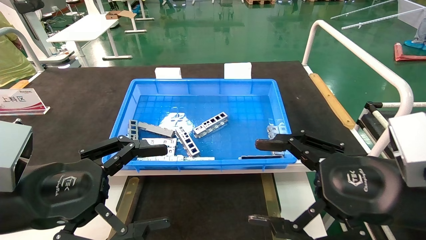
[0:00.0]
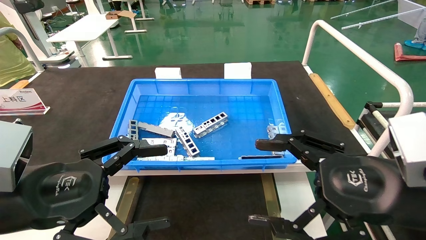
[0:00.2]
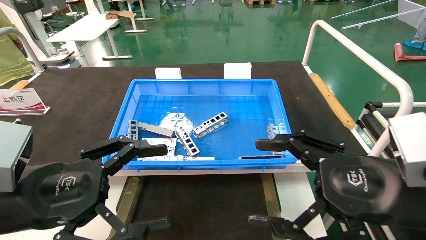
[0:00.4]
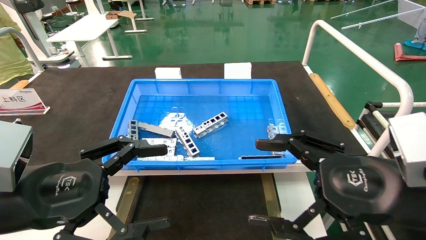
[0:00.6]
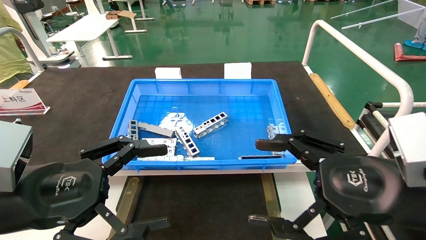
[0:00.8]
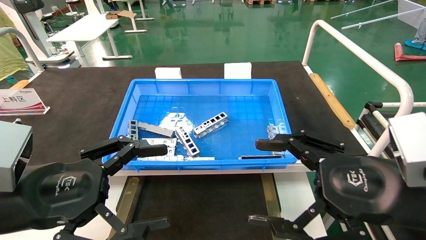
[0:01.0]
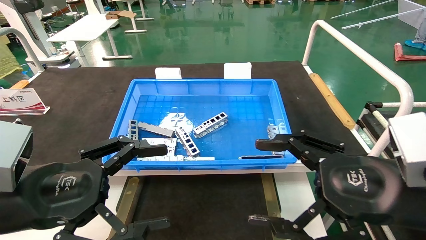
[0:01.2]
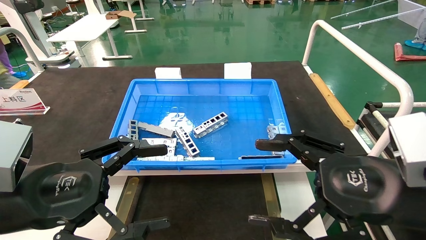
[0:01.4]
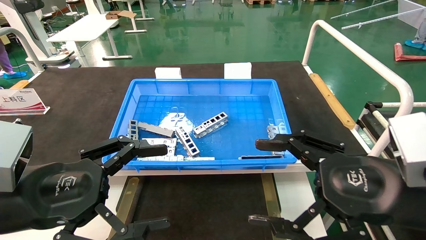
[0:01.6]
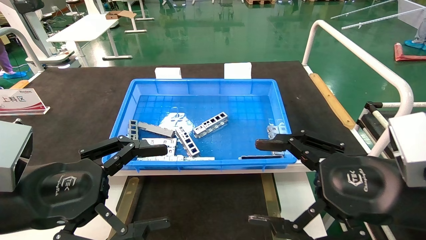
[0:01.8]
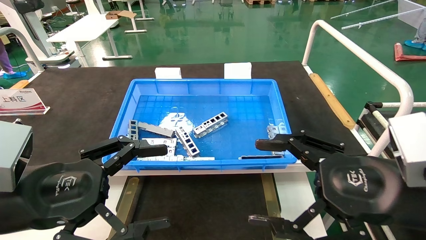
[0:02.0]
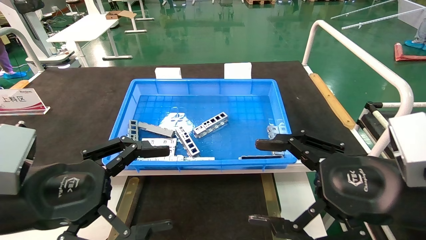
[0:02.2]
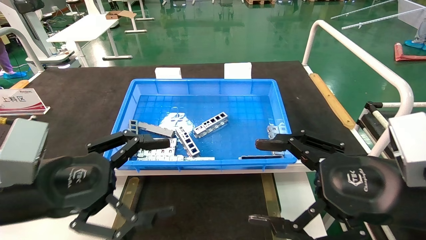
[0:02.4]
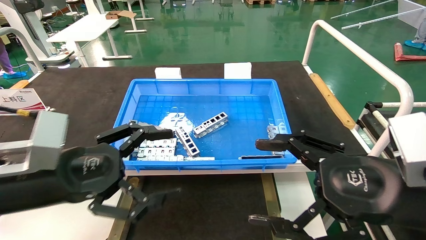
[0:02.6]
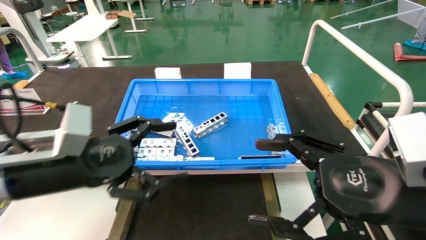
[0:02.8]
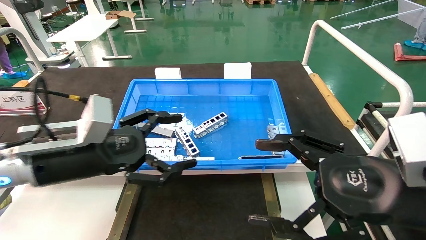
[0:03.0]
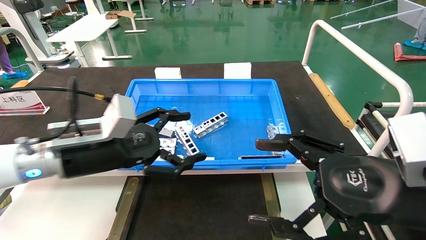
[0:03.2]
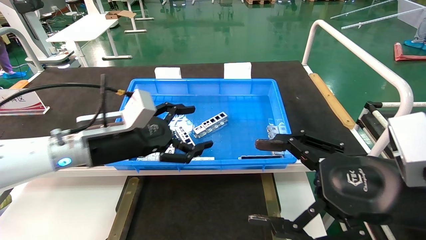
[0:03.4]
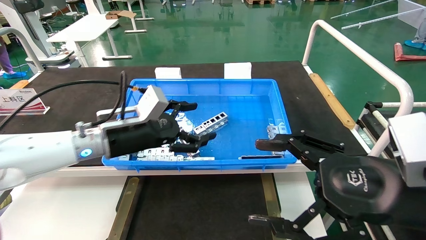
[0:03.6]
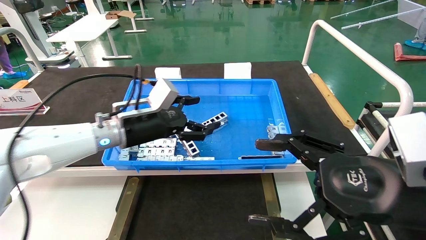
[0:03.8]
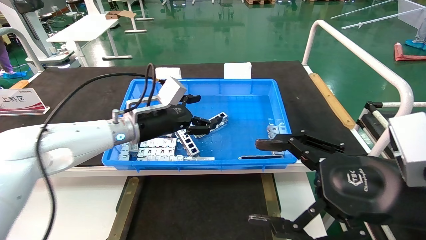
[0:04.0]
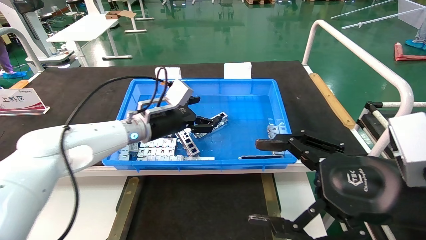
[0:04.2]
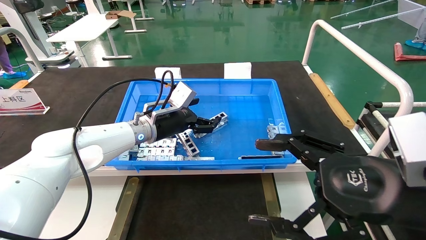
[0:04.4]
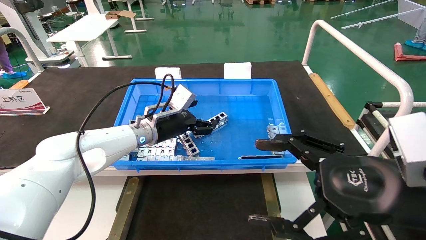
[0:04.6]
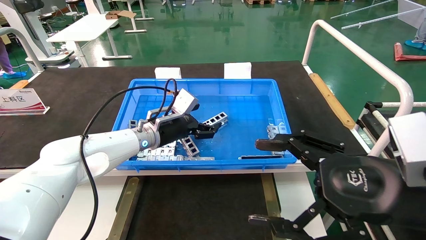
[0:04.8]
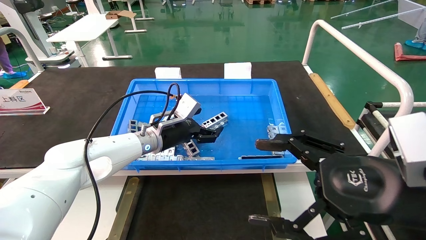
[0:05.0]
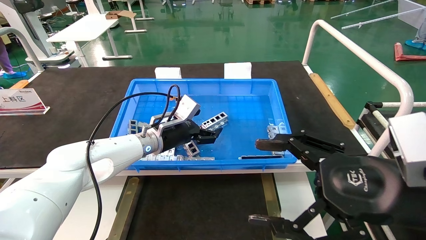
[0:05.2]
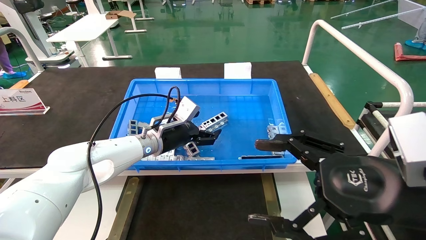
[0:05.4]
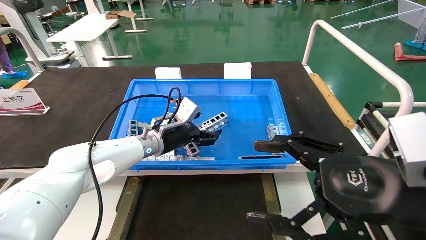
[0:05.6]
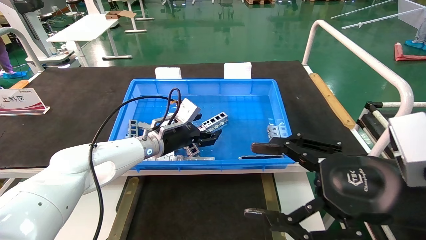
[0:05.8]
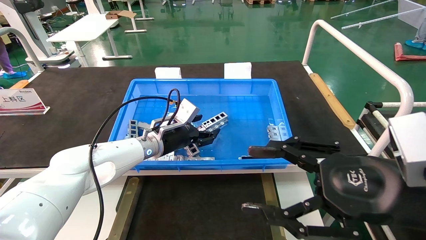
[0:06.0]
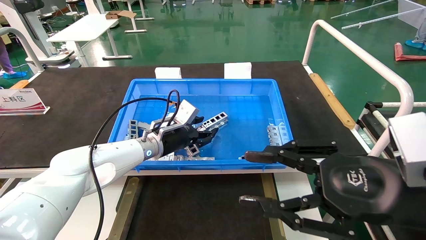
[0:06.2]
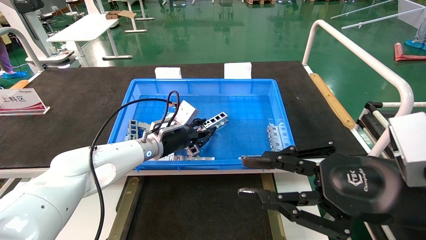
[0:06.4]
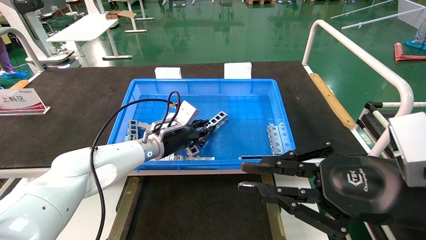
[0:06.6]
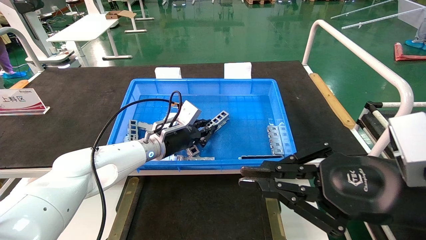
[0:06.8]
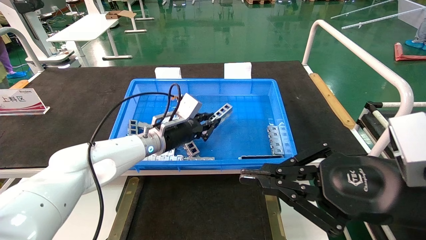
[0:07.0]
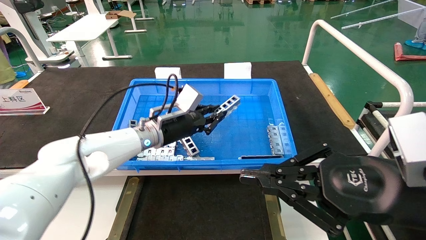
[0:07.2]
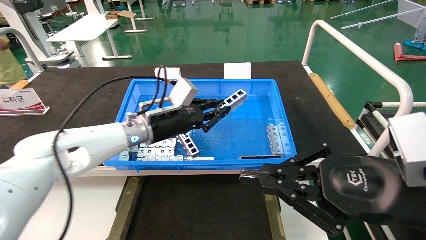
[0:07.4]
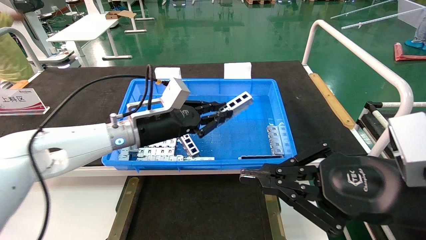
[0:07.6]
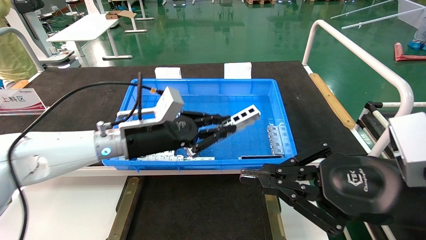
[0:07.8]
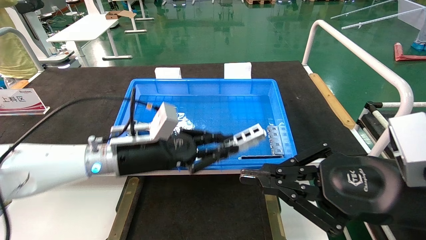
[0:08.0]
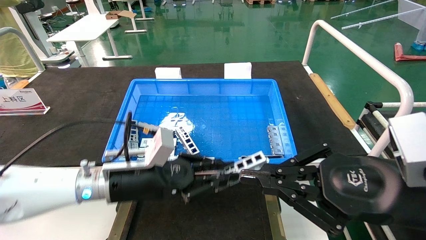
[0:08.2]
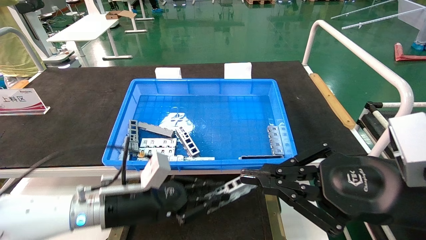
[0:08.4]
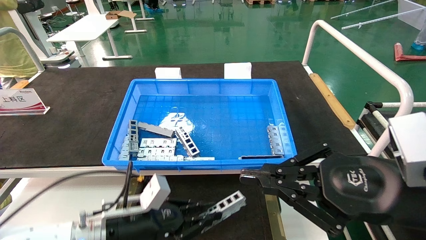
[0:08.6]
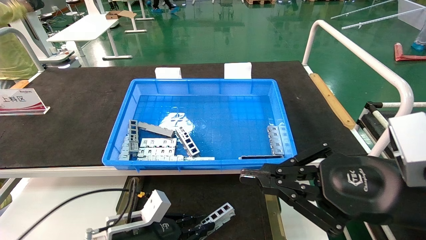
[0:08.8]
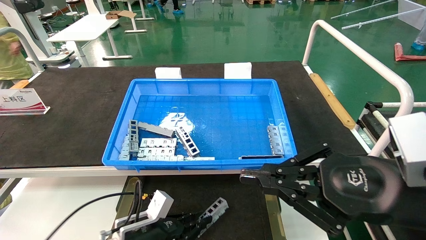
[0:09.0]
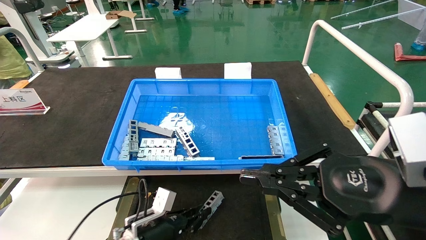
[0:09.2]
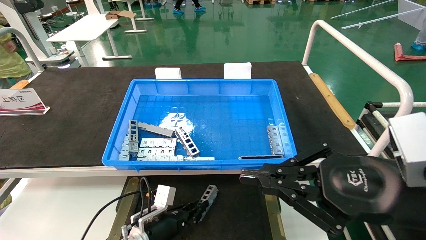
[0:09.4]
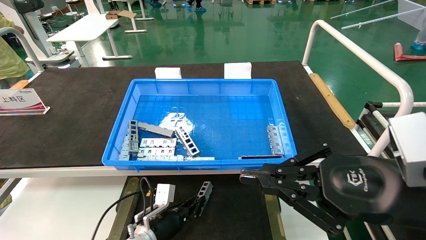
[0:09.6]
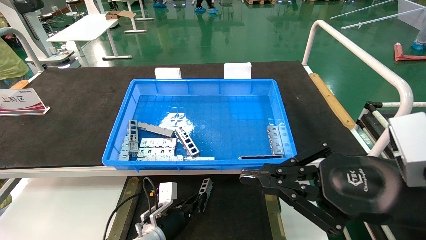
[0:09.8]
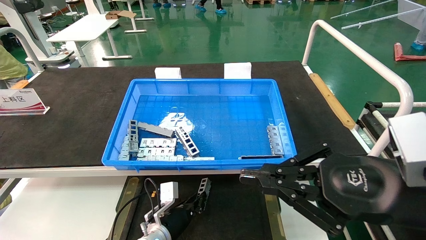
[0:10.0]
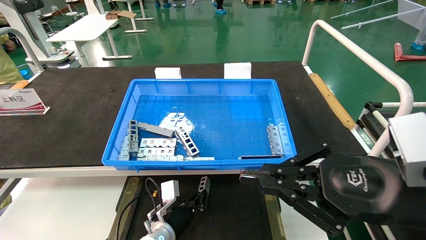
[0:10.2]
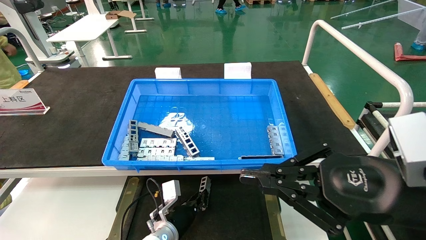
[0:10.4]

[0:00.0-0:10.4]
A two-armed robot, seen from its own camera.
Task of the whole recording: Grasp the part with one hand and place it on the black container.
Step, 0:02.4 to 0:06.6: Pick up the front USB bracket from the feeding area.
0:00.0 to 0:01.4: Both grippers stay about where they are.
0:01.4 to 0:03.0: The left gripper goes approximately 10 cm forward.
0:03.0 to 0:04.4: The left gripper goes roughly 20 cm forward and to the right.
0:04.4 to 0:06.0: The grippers move only a little.
0:06.0 to 0:07.4: The left gripper shifts approximately 5 cm upward, and closes its fingers; the right gripper closes up.
0:07.4 to 0:09.0: The left gripper is displaced downward and backward by roughly 25 cm.
0:09.0 to 0:10.4: The left gripper shifts approximately 10 cm forward, to the right and downward.

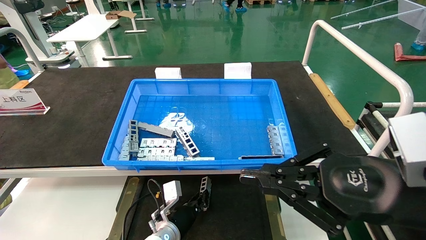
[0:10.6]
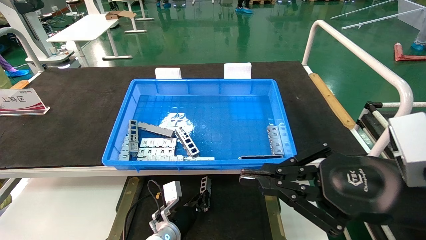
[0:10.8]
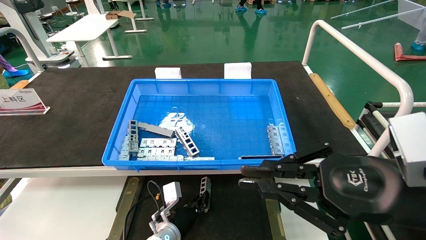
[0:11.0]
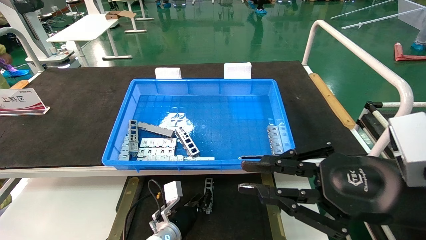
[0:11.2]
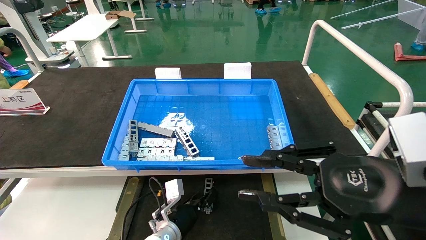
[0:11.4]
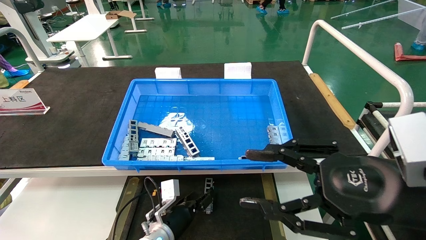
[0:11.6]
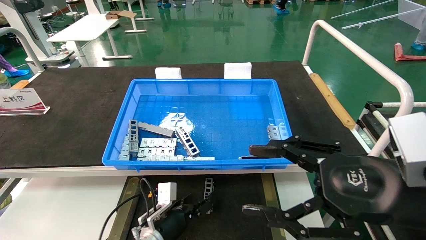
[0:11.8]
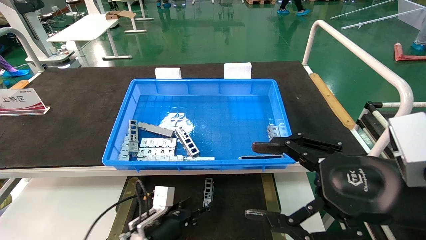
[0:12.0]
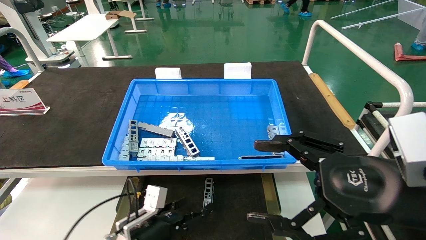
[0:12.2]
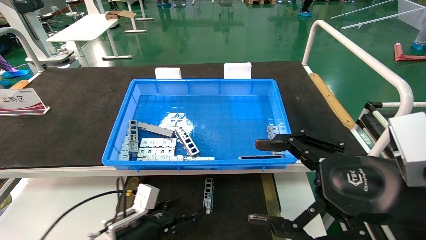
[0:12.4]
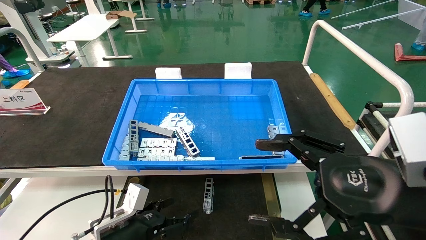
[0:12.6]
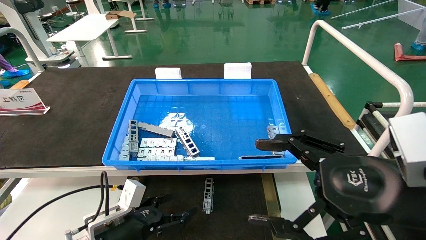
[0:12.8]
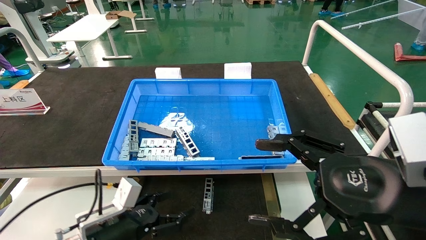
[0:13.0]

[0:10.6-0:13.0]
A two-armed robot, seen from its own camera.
Task of the whole recording: Grasp the part with one hand and place it on the black container.
0:10.6 to 0:11.8: The right gripper opens up, while the left gripper moves approximately 5 cm, and opens up.
0:11.8 to 0:13.0: The left gripper moves to the left, upward and backward, some 15 cm, and opens, while the right gripper opens up.

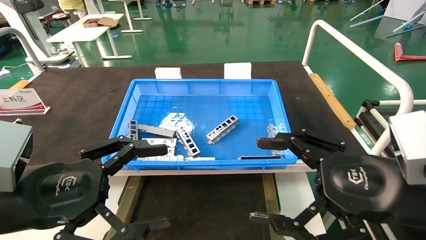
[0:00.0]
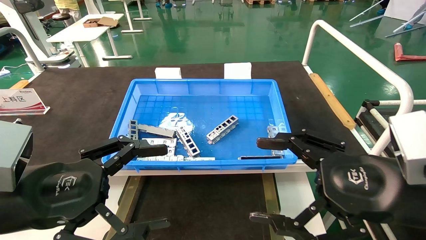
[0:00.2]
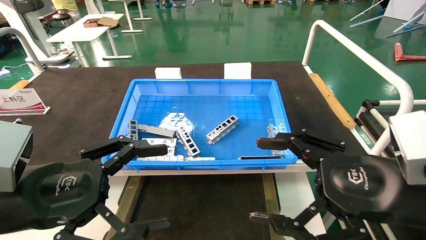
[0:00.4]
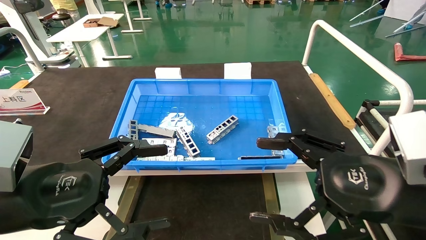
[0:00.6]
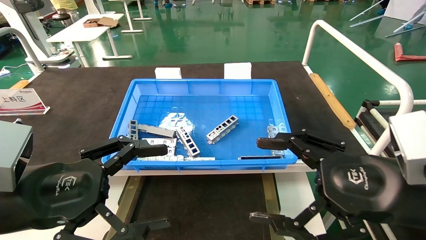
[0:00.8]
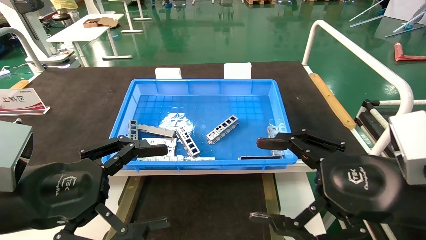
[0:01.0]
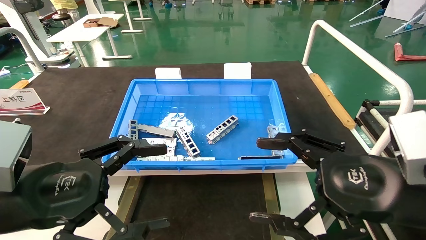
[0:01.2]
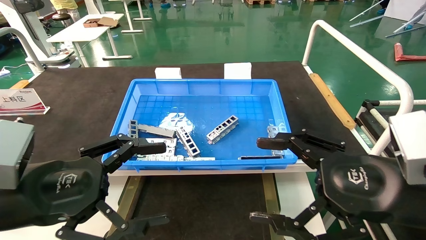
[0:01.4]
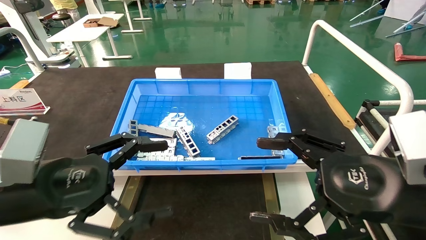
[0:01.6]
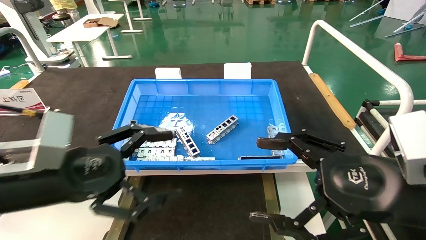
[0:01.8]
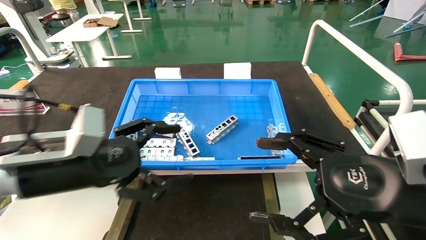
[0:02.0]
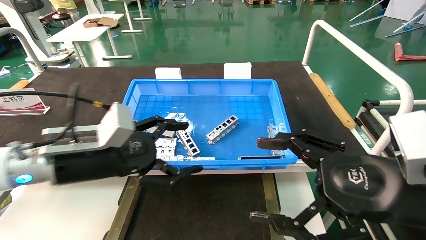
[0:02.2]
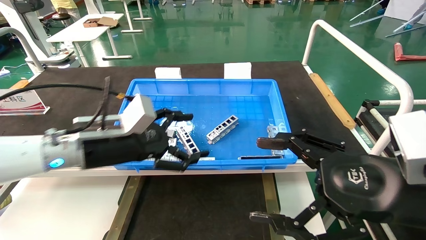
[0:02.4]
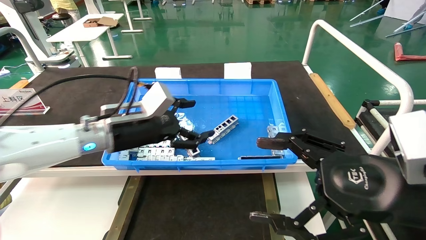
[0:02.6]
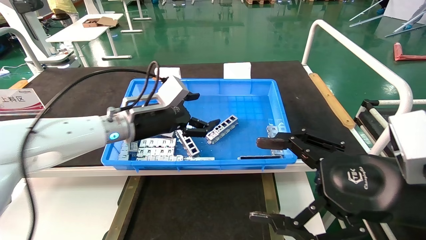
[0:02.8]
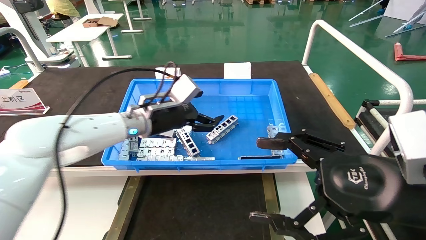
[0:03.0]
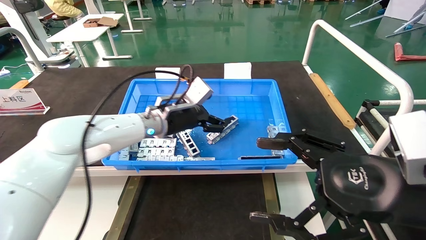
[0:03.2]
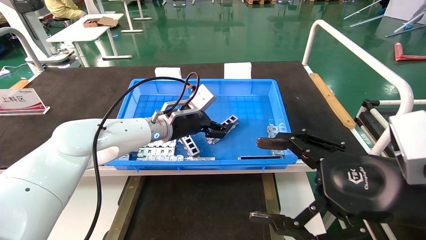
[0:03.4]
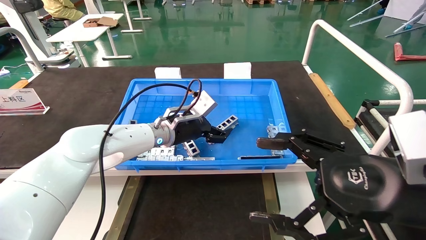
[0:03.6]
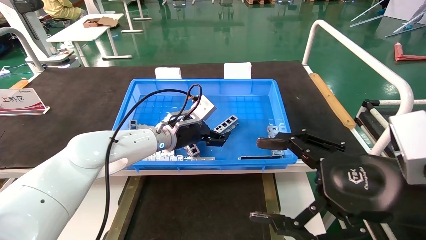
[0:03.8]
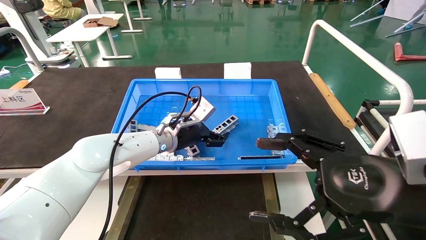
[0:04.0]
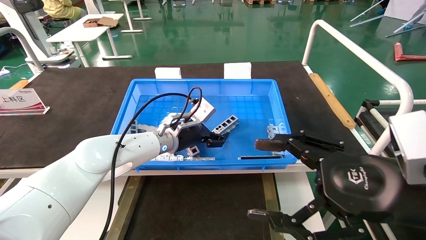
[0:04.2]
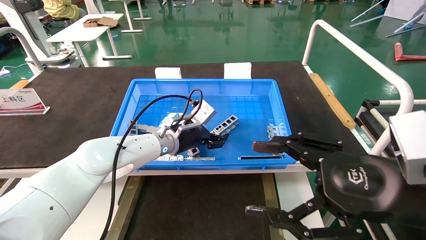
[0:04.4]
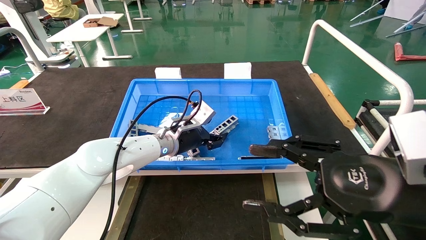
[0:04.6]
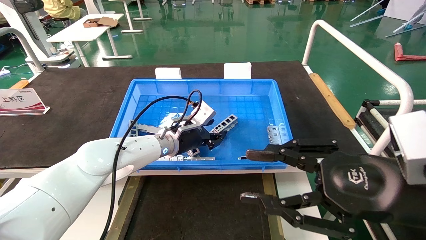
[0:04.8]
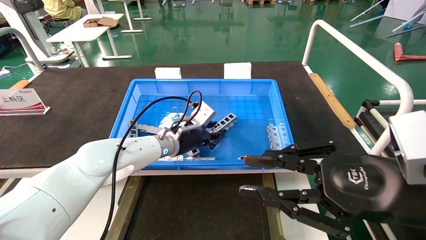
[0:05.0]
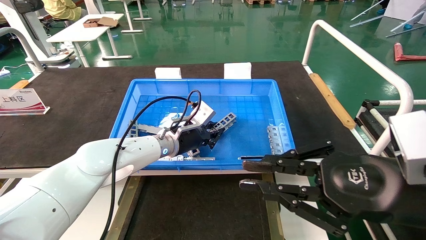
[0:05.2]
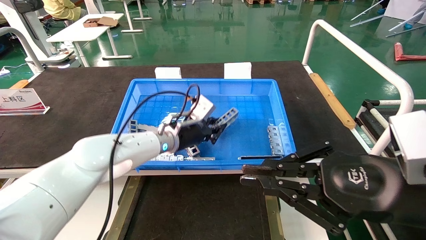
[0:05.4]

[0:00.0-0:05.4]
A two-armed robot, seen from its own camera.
Task of the whole recording: Grasp the part with one hand and place it on the black container.
0:00.0 to 0:01.4: Both grippers stay put.
0:01.4 to 0:02.8: The left gripper is displaced forward and to the right by some 25 cm.
0:02.8 to 0:04.0: The left gripper heads forward, to the right and downward, covering some 10 cm.
0:04.0 to 0:05.4: The left gripper closes its fingers; the right gripper closes its fingers.
